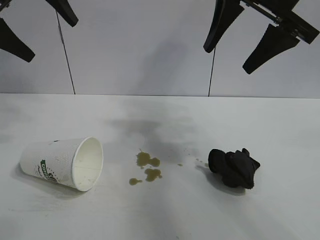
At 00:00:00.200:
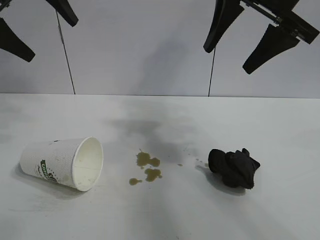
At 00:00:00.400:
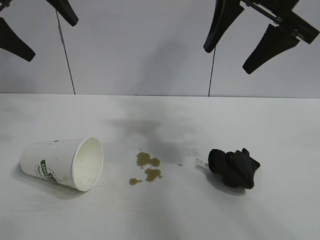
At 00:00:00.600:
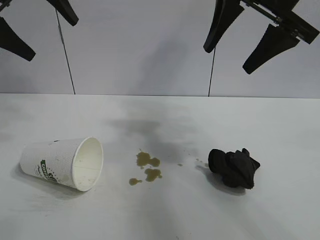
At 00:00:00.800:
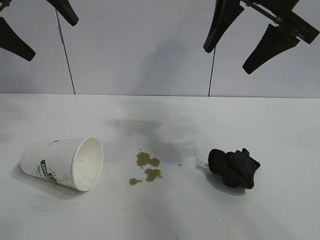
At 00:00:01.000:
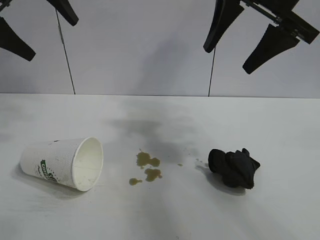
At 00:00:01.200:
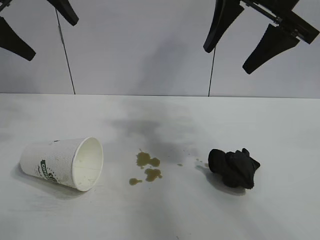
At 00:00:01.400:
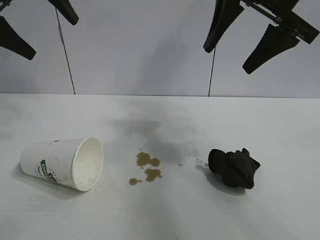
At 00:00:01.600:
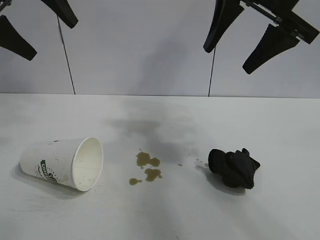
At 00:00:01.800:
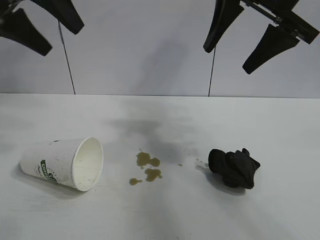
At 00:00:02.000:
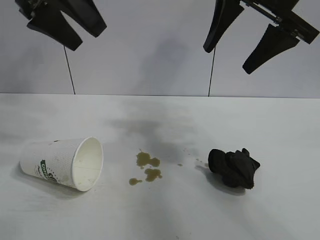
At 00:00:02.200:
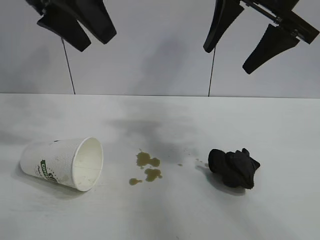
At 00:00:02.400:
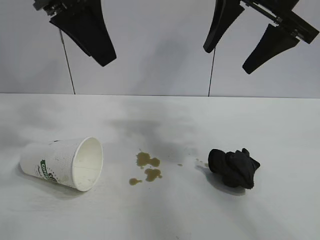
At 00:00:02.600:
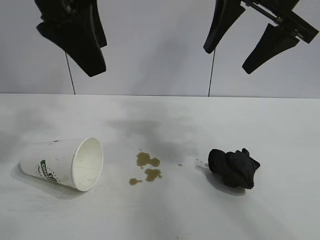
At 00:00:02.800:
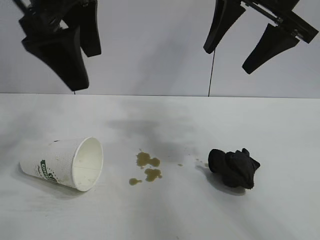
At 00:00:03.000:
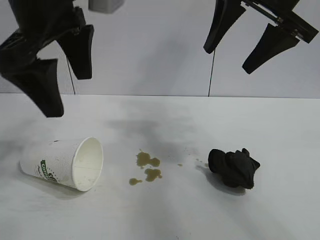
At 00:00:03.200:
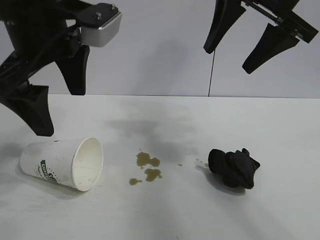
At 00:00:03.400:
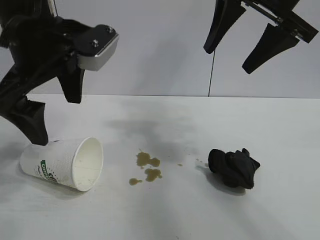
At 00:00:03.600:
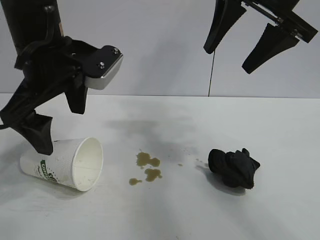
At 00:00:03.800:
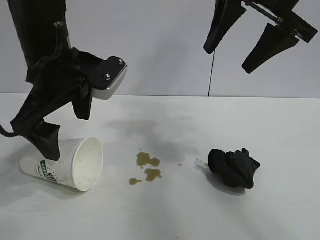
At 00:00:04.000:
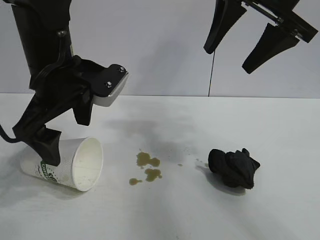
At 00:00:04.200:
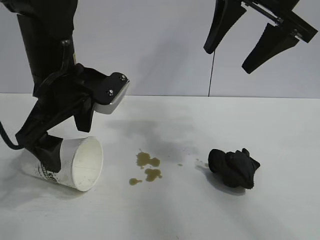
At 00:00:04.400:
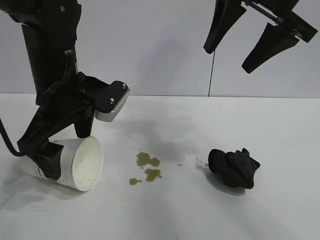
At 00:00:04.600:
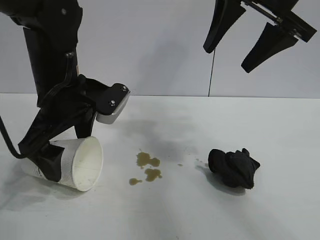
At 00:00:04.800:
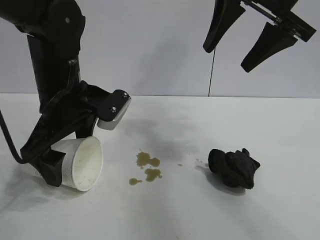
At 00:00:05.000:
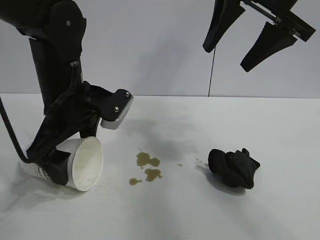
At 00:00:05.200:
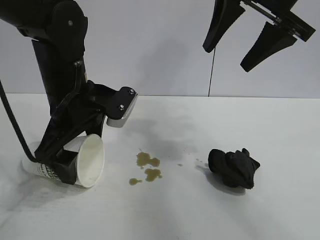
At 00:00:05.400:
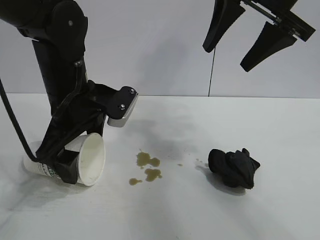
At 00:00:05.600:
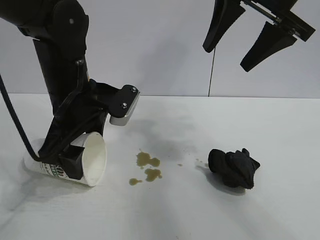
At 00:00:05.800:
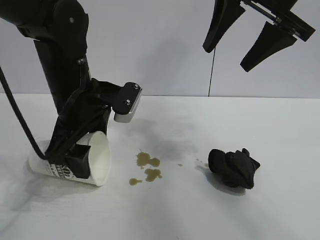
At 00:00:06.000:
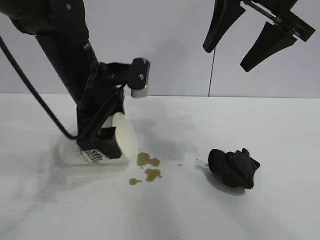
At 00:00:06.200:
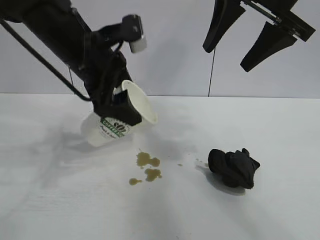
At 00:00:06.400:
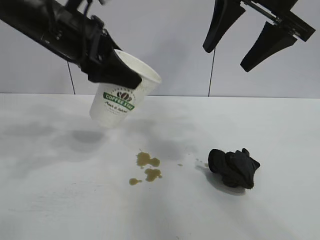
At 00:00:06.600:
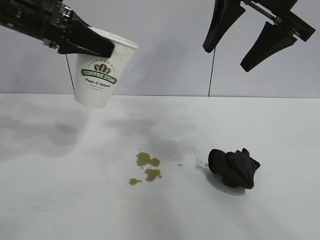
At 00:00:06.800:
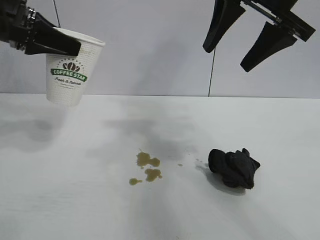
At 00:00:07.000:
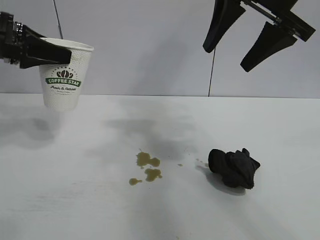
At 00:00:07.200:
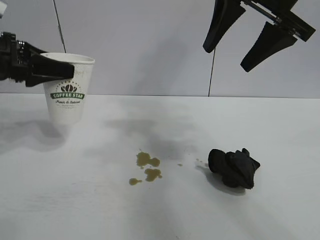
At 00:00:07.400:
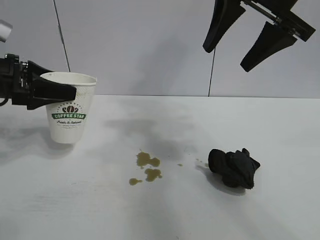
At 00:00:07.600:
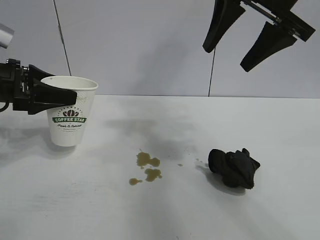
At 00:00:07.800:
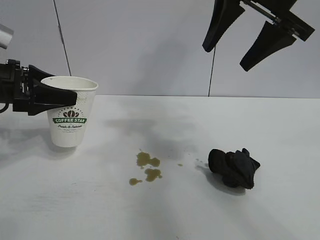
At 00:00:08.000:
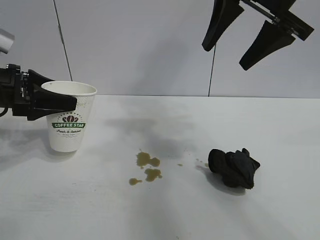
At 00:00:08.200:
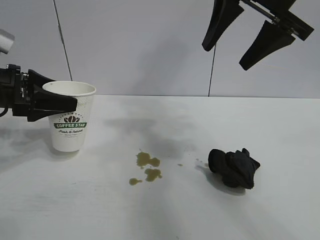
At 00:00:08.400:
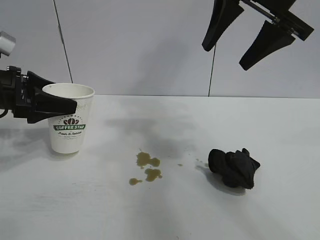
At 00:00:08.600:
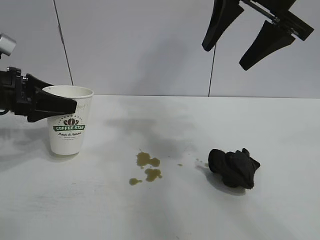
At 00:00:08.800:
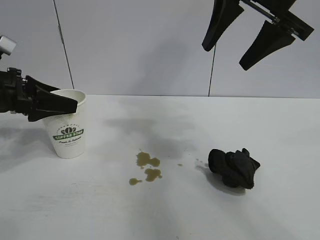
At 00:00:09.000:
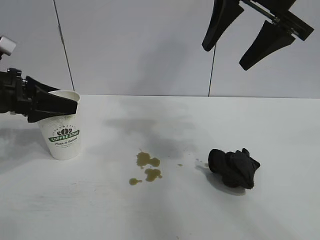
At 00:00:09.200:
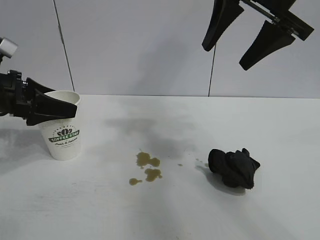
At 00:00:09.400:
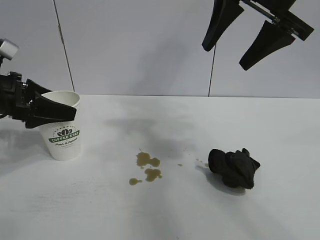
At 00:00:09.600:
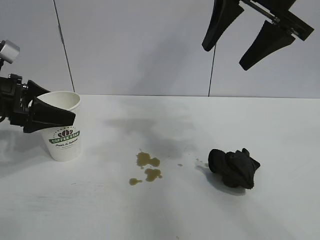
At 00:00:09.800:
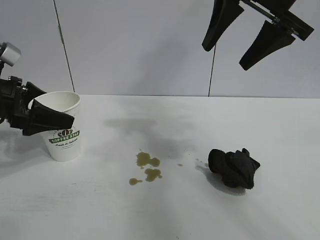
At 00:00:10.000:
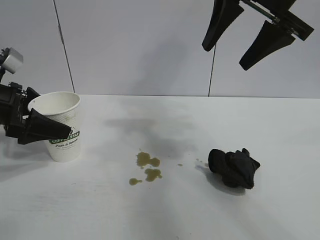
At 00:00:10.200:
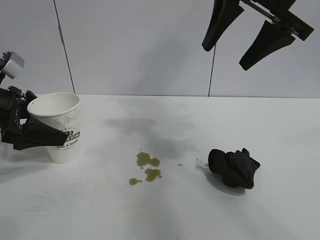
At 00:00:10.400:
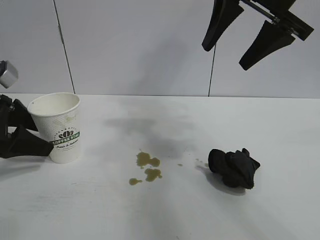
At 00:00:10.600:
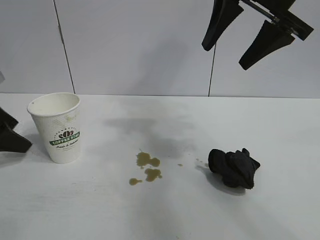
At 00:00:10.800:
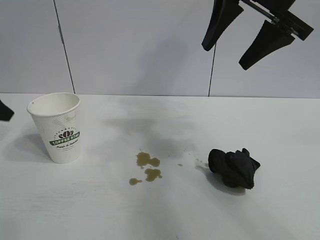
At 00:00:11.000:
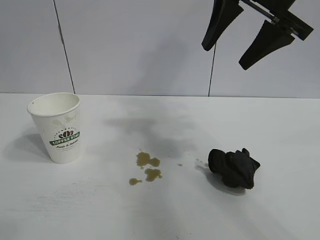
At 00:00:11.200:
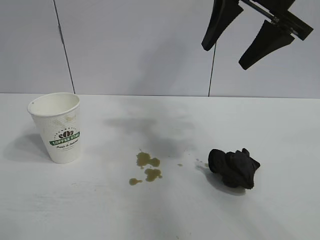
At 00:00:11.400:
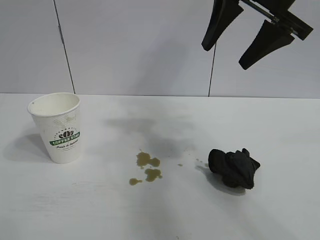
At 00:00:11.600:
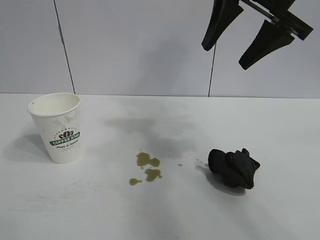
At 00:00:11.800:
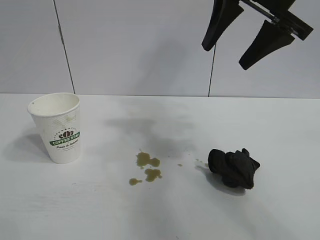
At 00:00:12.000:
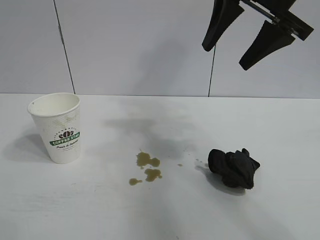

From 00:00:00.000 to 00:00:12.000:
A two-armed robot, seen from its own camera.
Task of the whole recording: the left gripper pick up the fallen cup and place it upright, the right gripper grasp the black rag and wipe the stain on the table, the right gripper put the black rag back in its original position.
Step, from 00:00:01.200 to 00:00:05.400: Grasp the paper cup with left gripper.
Step, from 00:00:05.800 to 00:00:08.800: Stand the paper cup upright with left gripper.

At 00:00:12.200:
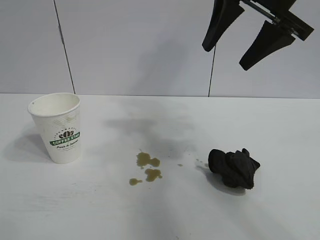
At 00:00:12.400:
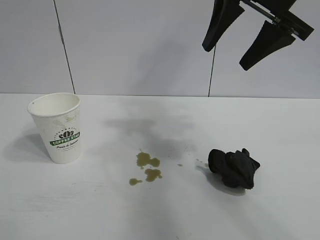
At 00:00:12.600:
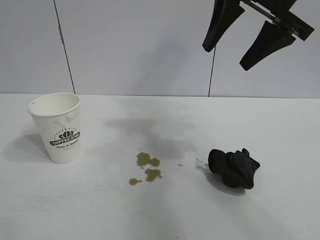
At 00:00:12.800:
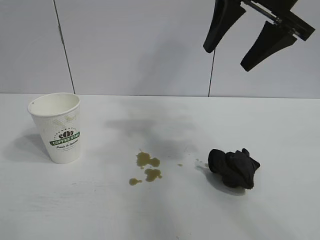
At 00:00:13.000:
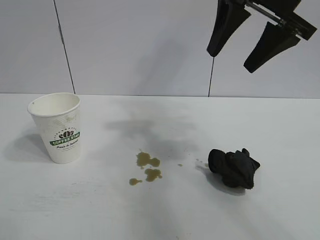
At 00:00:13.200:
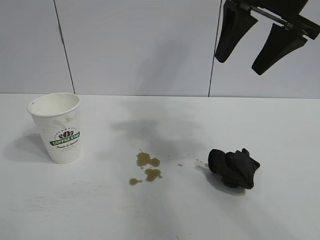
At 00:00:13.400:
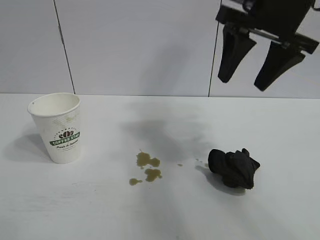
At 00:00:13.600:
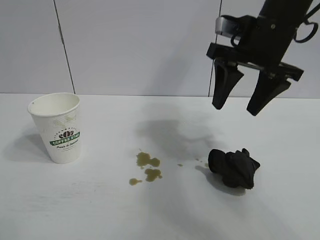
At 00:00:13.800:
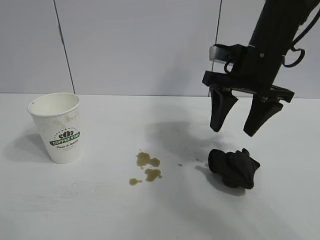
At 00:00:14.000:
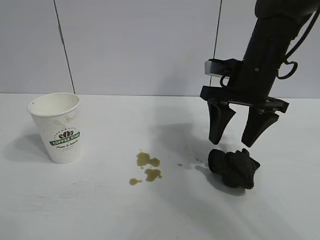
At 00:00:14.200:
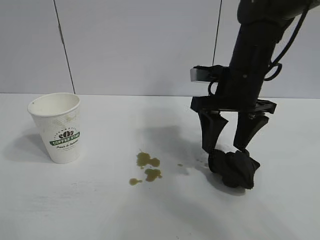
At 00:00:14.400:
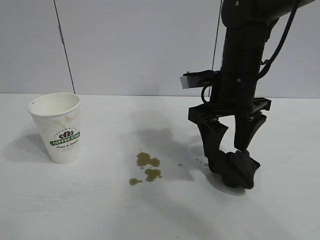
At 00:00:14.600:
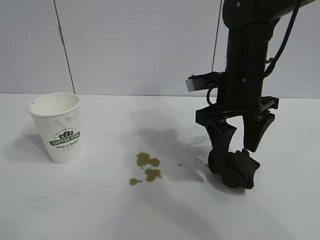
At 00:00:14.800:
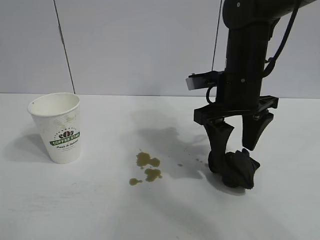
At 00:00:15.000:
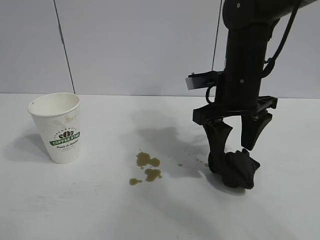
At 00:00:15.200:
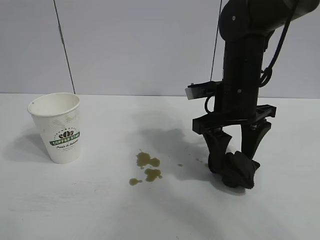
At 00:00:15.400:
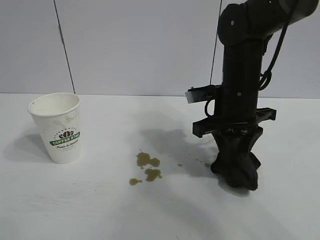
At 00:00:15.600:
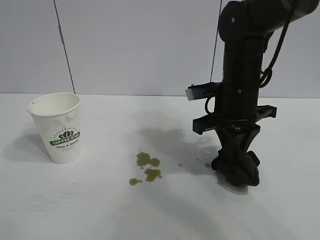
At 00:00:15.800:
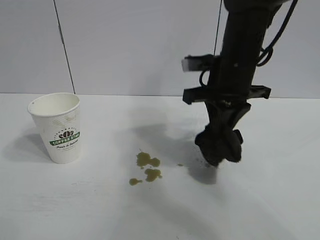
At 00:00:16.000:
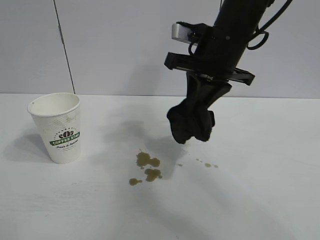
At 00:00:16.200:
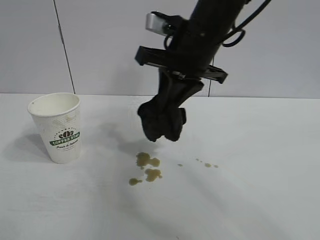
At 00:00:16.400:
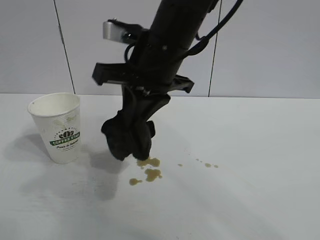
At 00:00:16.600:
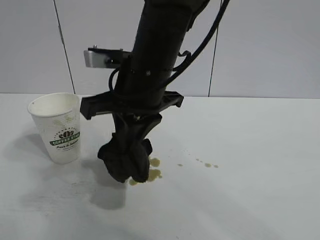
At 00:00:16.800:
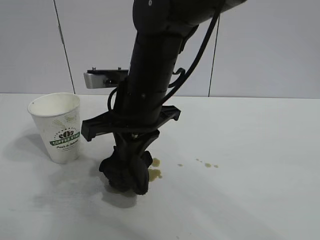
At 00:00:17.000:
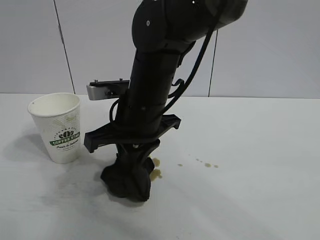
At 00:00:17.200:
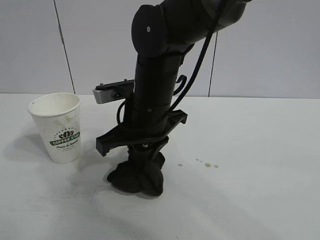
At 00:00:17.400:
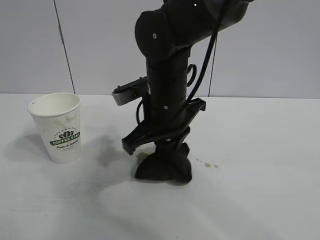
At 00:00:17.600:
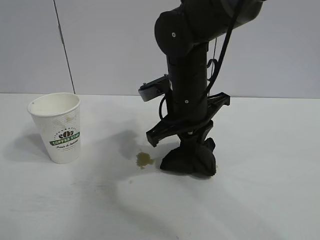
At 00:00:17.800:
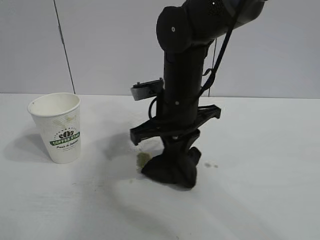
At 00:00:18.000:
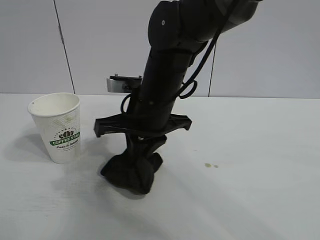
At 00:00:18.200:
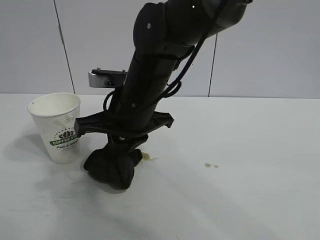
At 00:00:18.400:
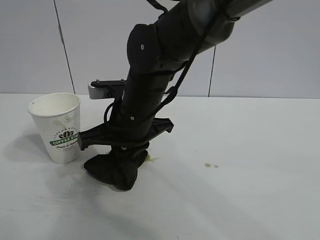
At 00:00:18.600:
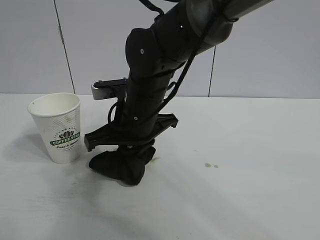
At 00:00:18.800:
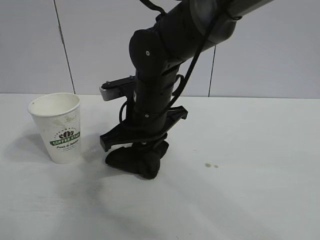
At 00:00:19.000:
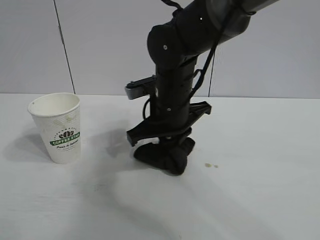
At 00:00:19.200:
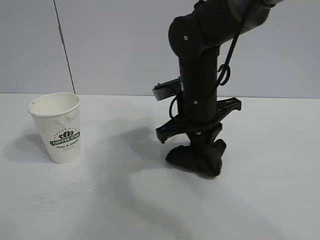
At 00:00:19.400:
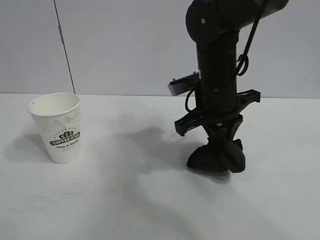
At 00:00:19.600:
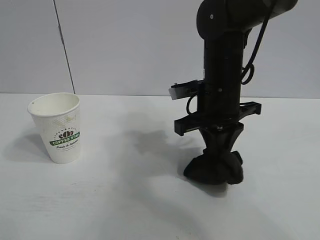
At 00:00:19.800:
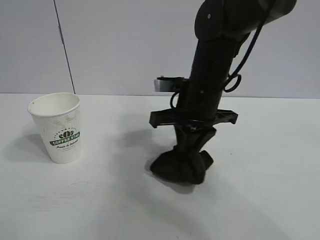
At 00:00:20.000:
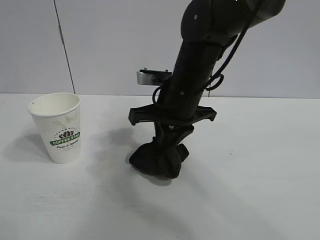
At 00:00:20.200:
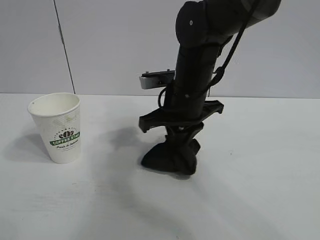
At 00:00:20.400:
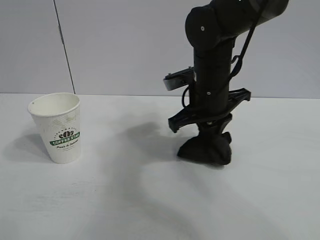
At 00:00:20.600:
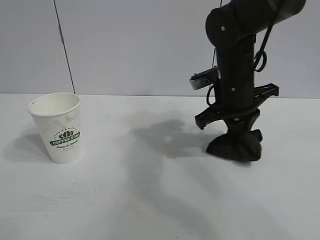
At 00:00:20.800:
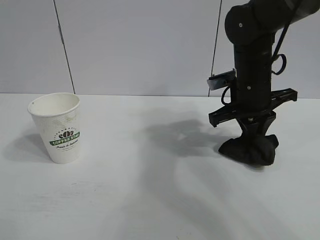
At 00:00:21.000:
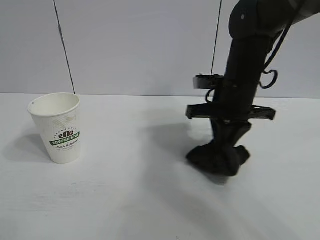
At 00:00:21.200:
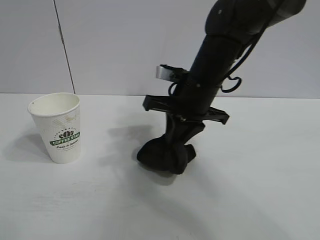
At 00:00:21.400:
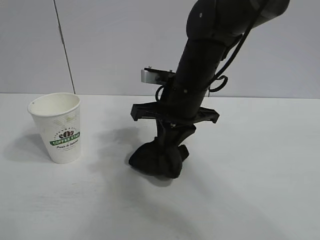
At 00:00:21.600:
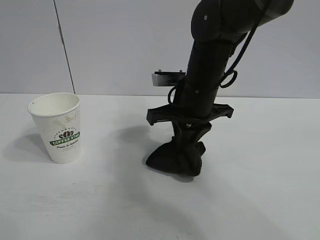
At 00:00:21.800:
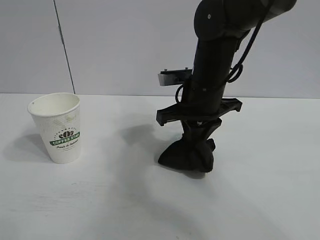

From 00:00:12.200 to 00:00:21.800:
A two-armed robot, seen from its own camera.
Task of the whole recording: the left gripper pick up the fallen cup and place it upright, the right gripper grasp the black rag and wipe the stain on the table, the right gripper put the black rag back in its original position.
Step, from 00:00:12.200 to 00:00:15.400: Grasp the rag with right gripper.
Step, from 00:00:15.600 to 00:00:21.200: Wipe the stains off the table with the rag with right gripper.
